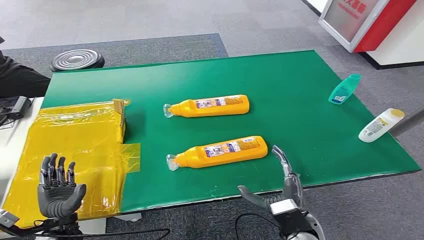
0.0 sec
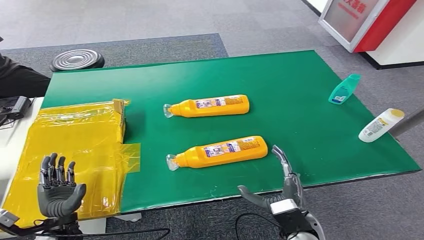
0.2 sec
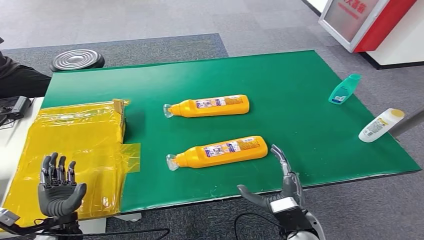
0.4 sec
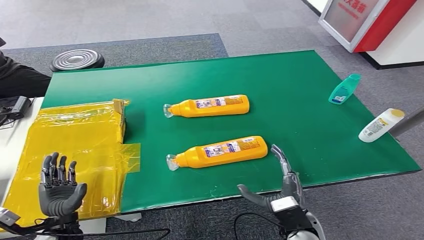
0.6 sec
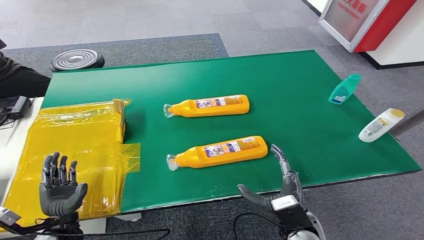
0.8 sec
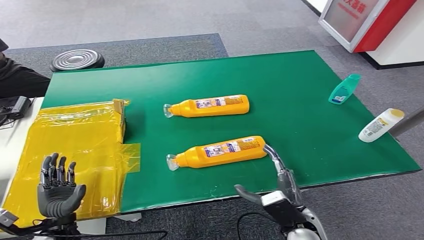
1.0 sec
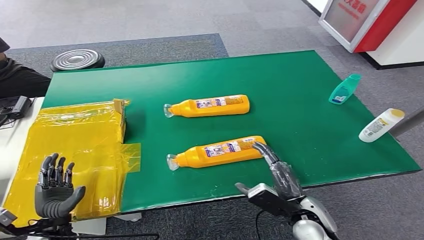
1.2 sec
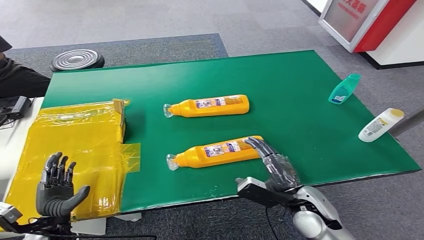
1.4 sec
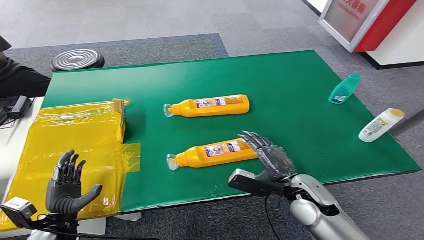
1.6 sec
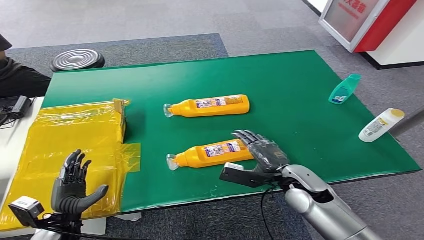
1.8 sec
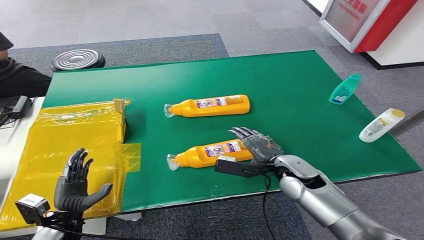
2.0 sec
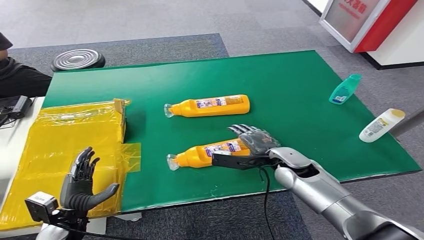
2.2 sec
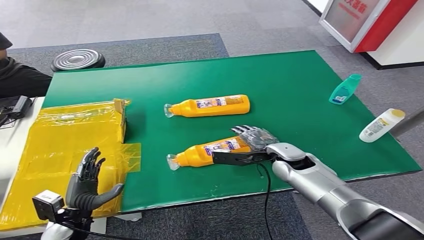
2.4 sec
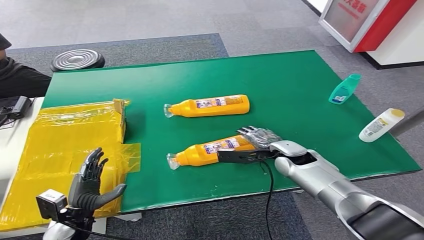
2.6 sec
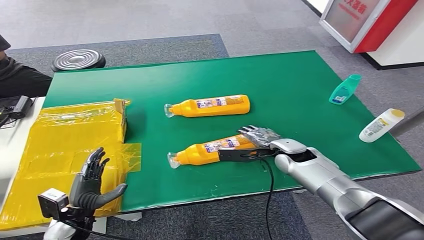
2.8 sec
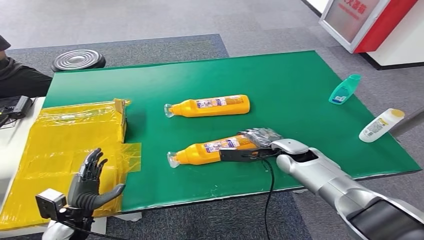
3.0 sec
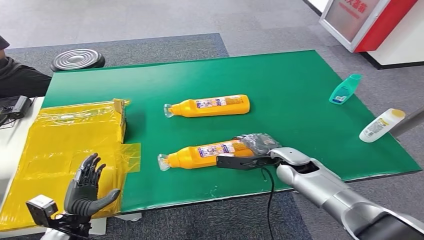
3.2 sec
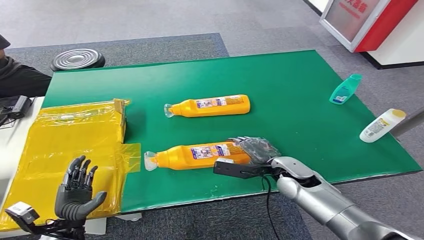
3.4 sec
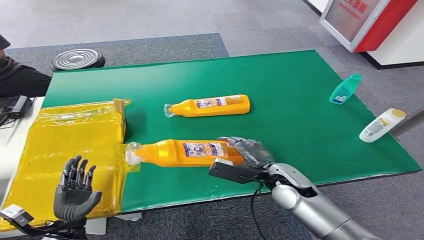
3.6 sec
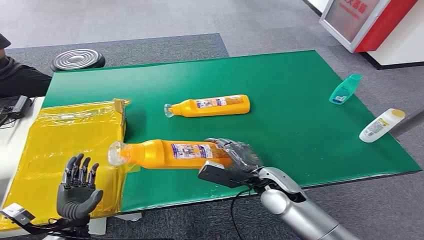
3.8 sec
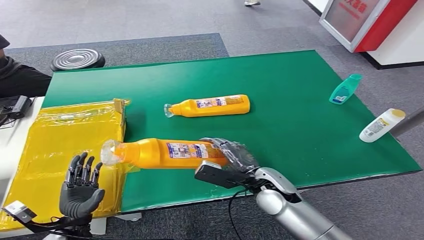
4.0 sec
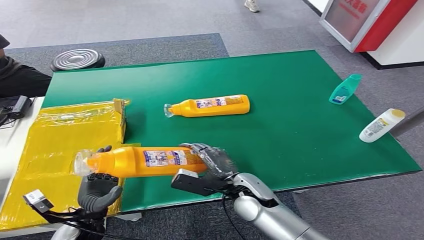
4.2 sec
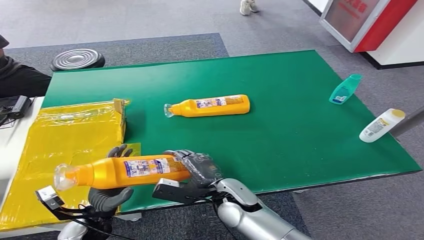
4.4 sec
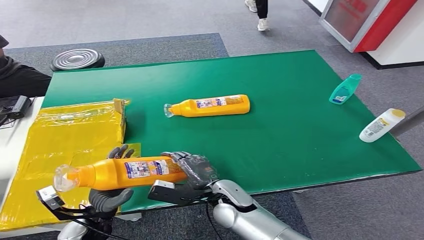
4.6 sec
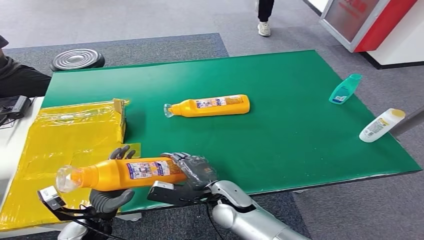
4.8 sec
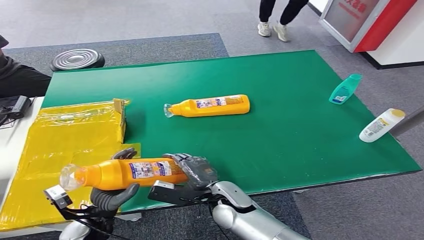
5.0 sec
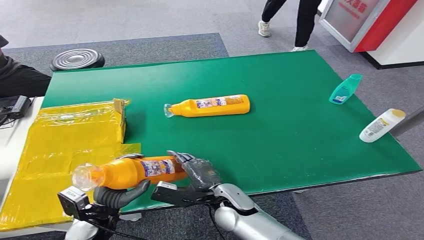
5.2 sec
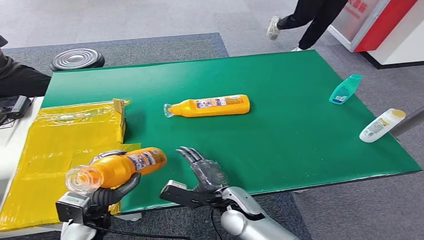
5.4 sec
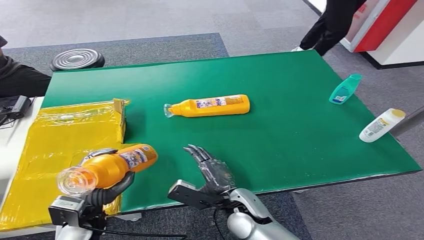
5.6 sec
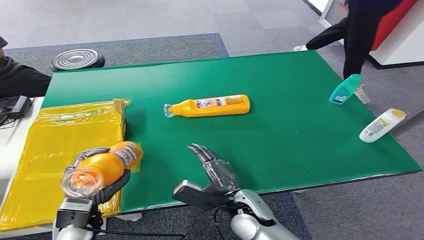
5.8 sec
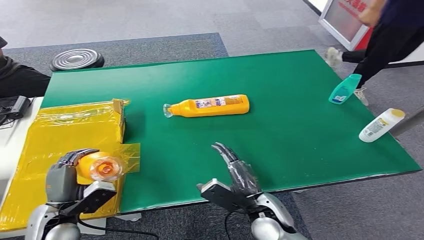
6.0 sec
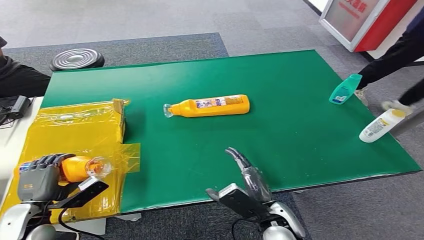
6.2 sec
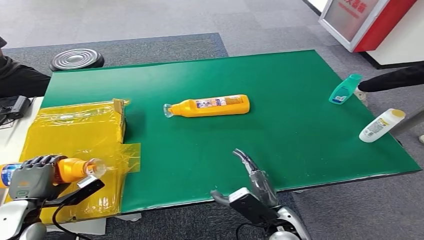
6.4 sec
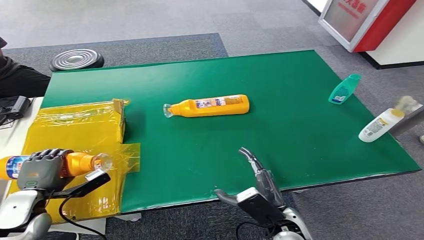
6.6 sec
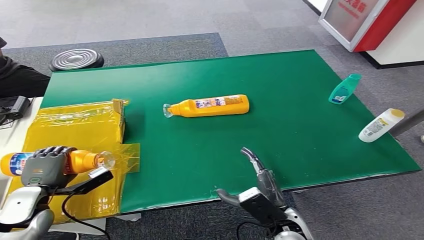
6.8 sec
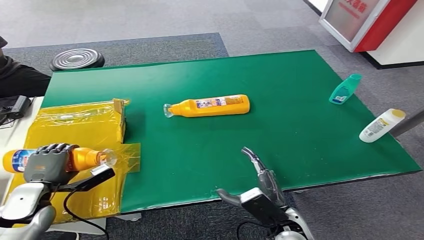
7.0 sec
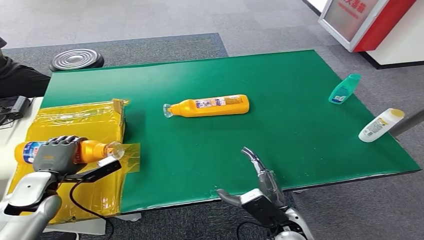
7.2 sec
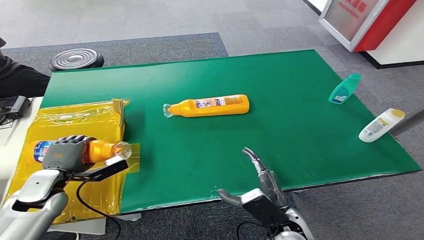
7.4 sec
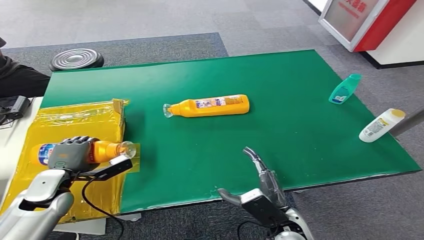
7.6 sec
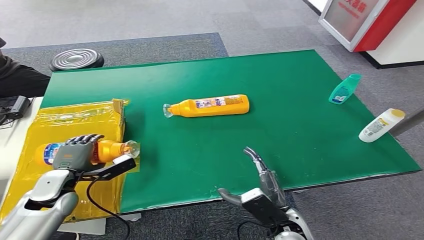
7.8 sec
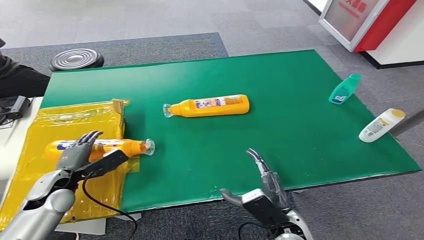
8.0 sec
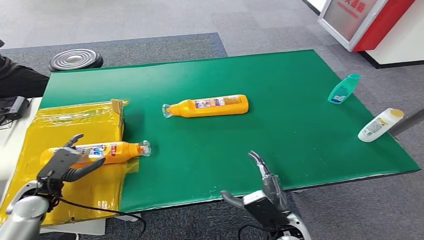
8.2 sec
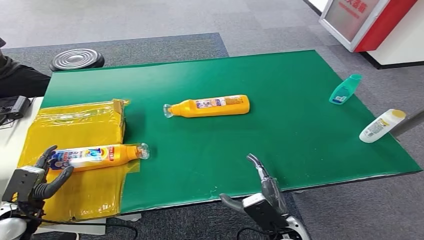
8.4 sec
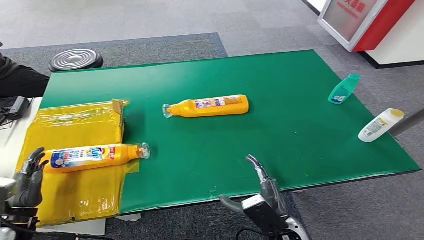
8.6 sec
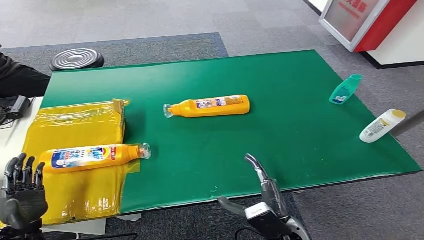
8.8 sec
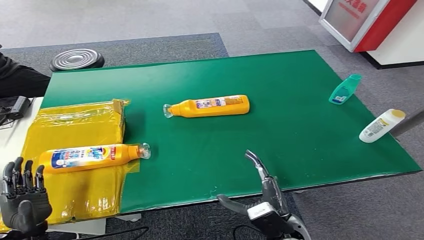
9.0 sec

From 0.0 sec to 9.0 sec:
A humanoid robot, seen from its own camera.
Step, from 0.0 sec to 4.0 sec: Pick up the bottle from the table.
Step, from 4.2 sec to 9.0 sec: Turn the bottle to the front side.
From 1.6 sec to 3.0 sec: The right hand moves forward, about 15 cm.
From 4.4 sec to 6.0 sec: The right hand heads to the right and backward, covering approximately 10 cm. Meanwhile the left hand travels upward and to the left by roughly 10 cm.
From 6.0 sec to 7.6 sec: The left hand goes some 10 cm forward. Meanwhile the right hand changes place by some 5 cm.
From 7.6 sec to 9.0 sec: The left hand moves backward, some 15 cm.

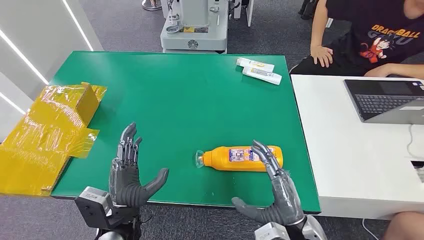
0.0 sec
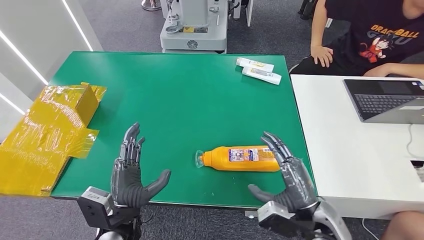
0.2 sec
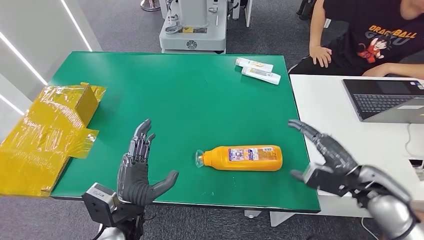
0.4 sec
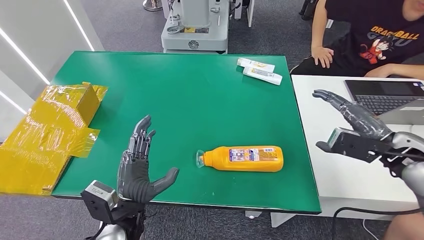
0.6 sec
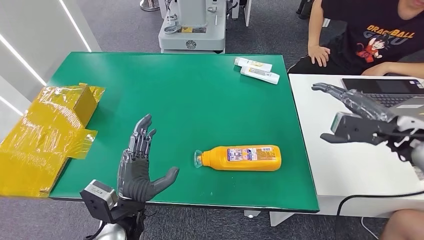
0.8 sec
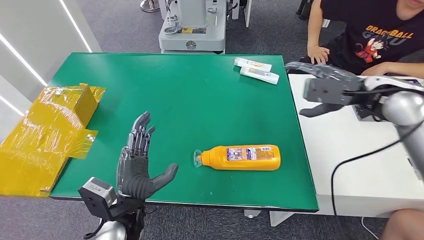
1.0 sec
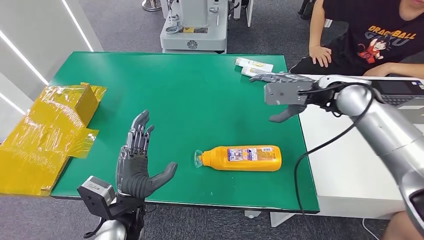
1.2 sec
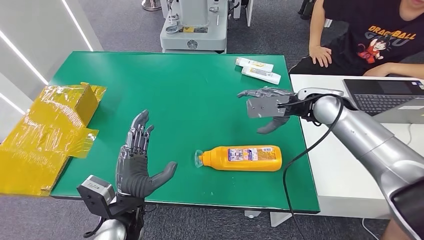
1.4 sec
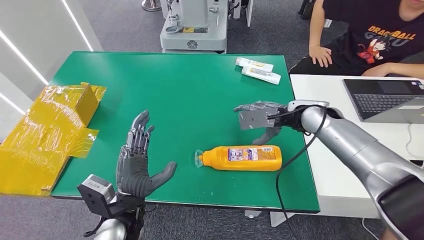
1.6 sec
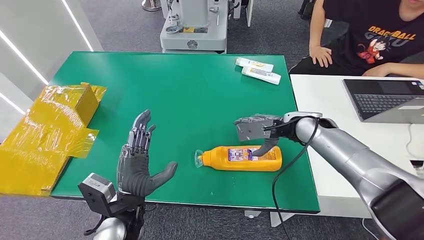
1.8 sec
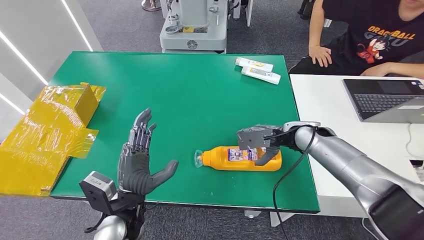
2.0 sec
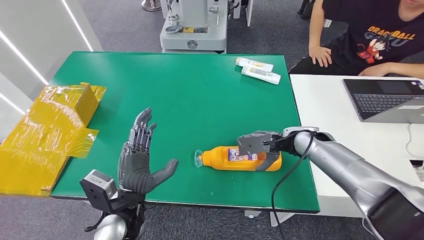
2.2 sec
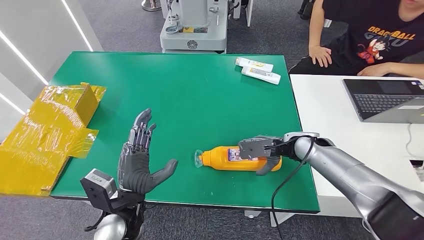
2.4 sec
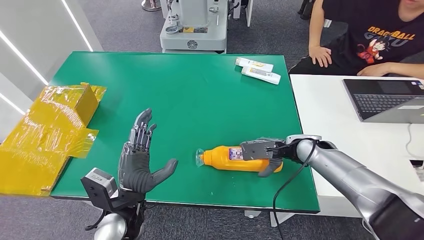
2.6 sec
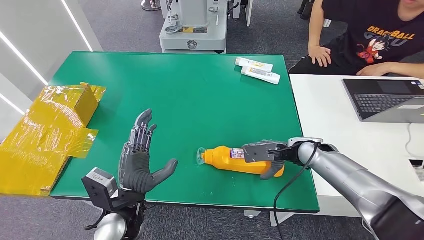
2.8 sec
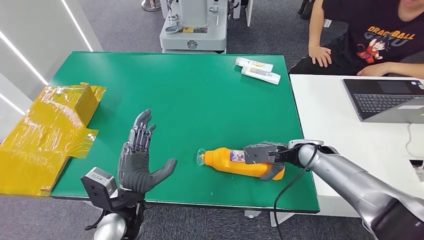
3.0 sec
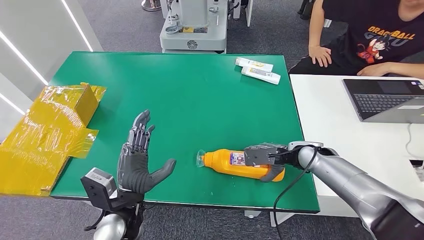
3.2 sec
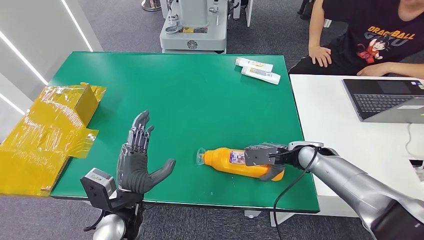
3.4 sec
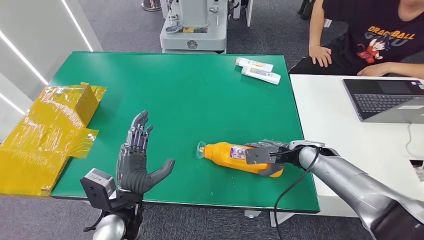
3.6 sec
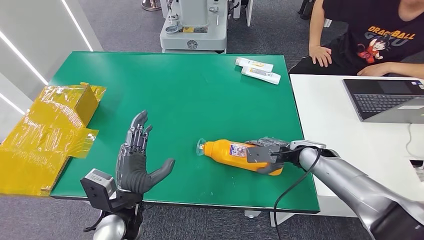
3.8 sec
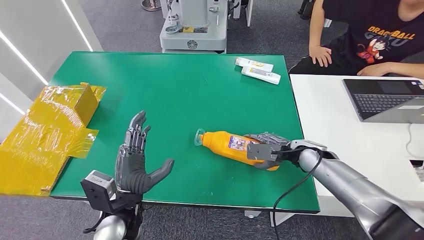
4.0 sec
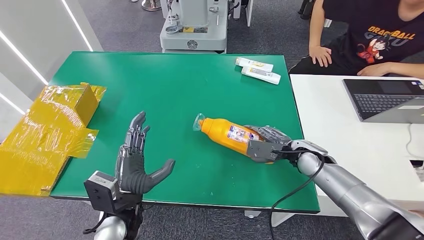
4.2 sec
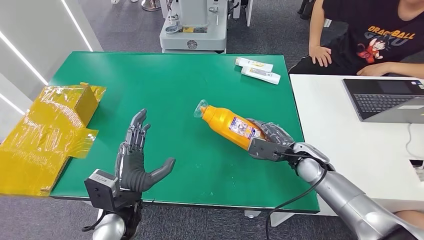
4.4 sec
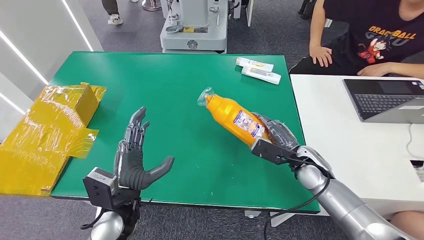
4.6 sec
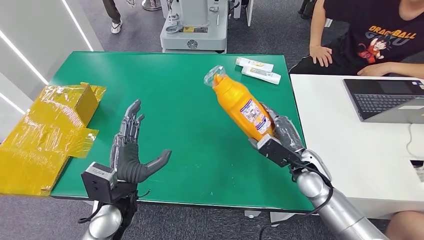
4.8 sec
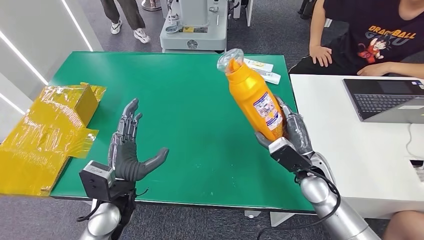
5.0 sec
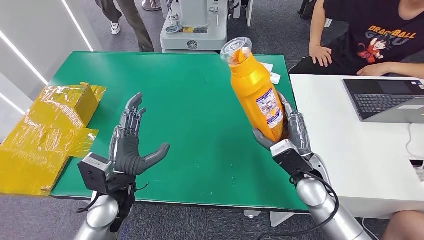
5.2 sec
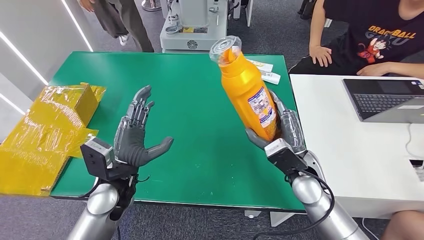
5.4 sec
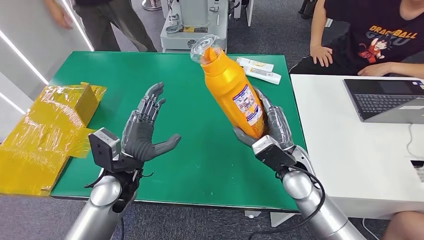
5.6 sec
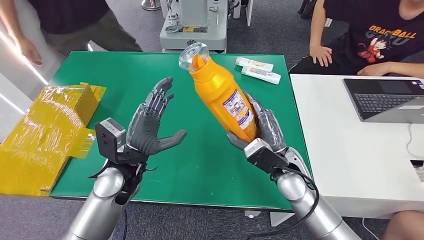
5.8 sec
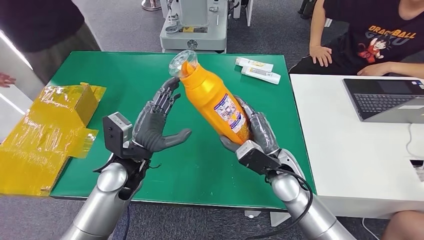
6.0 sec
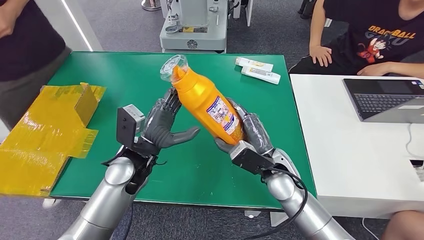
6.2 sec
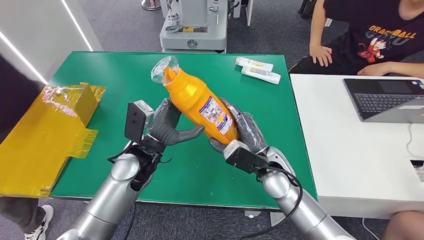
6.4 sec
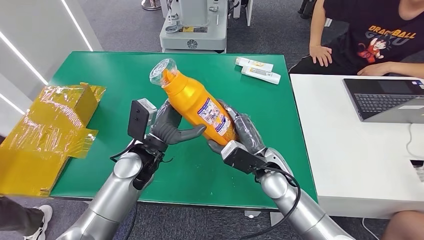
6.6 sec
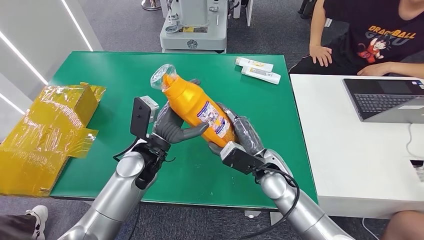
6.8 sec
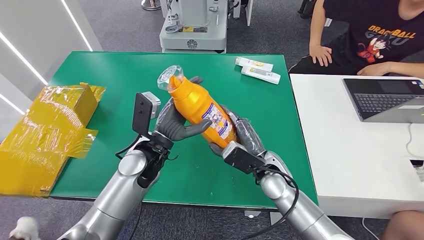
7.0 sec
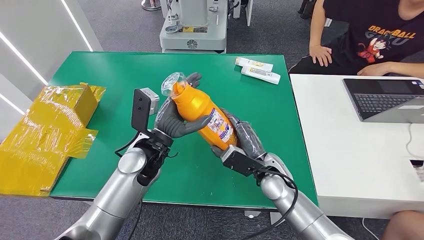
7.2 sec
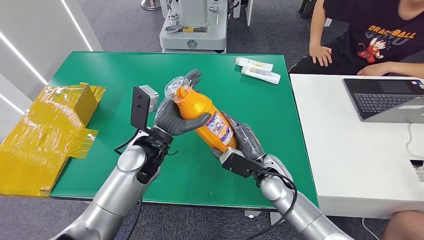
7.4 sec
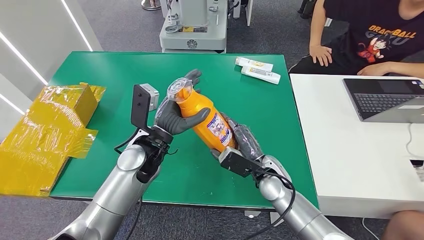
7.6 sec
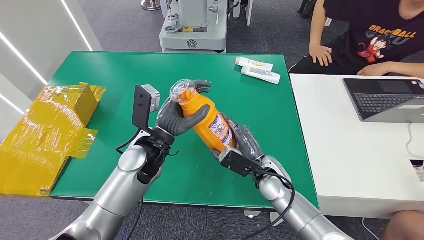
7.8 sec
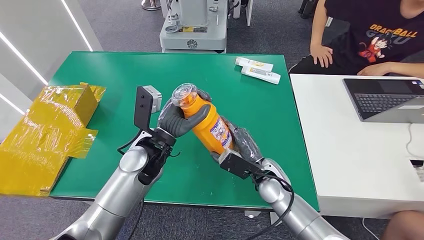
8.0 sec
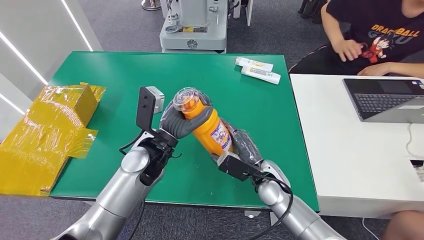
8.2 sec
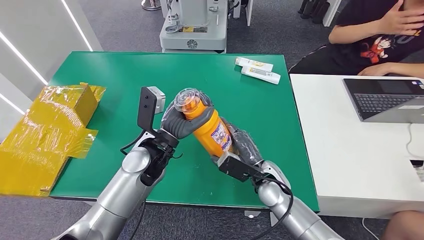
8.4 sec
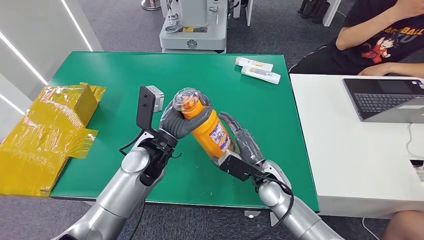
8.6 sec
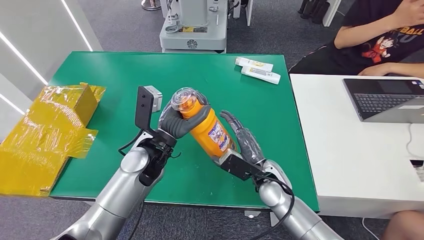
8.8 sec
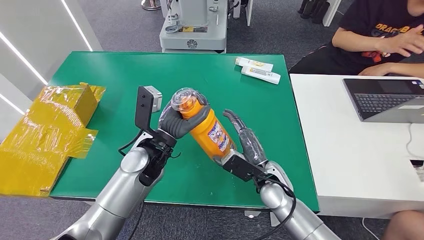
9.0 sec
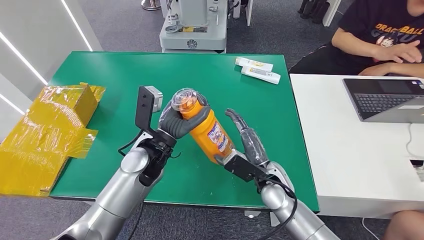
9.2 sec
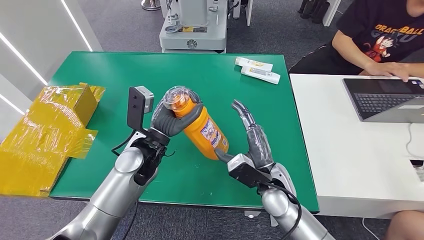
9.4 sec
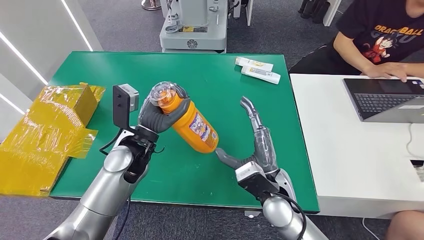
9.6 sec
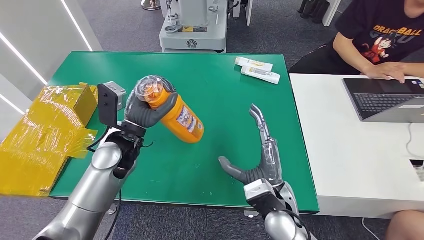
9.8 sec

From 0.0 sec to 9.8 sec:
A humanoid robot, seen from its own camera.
Step, from 0.0 sec to 5.0 sec: Pick up the bottle from the table.
From 1.4 sec to 2.8 sec: The right hand moves downward, about 15 cm.
From 7.0 sec to 8.4 sec: The hands stay close to where they were, moving slightly.
